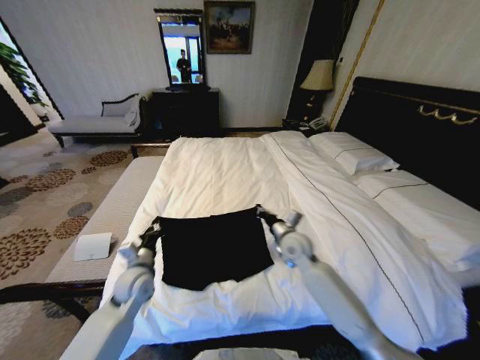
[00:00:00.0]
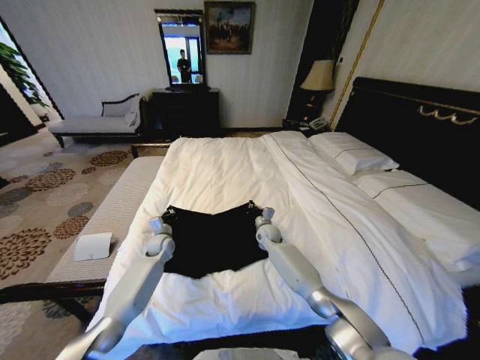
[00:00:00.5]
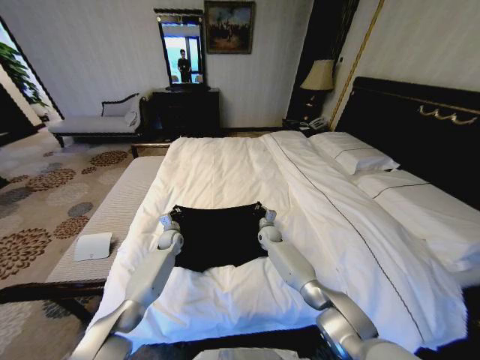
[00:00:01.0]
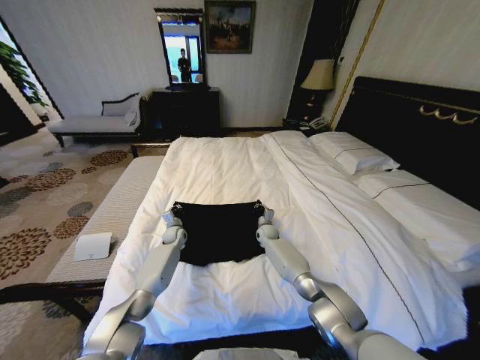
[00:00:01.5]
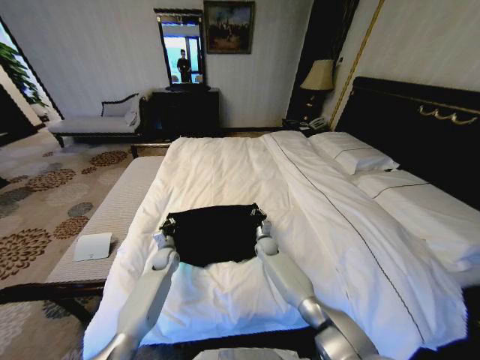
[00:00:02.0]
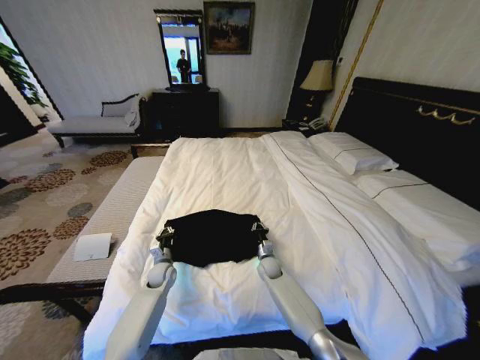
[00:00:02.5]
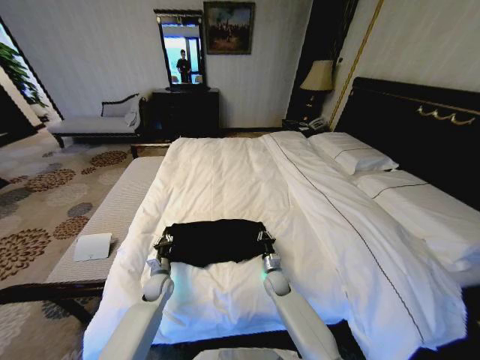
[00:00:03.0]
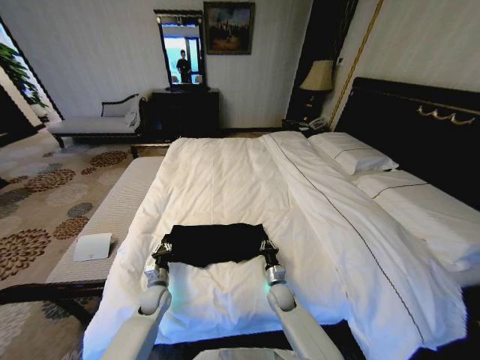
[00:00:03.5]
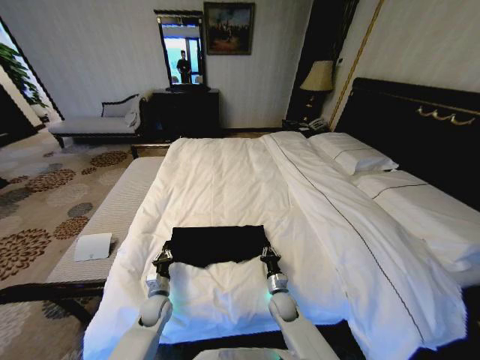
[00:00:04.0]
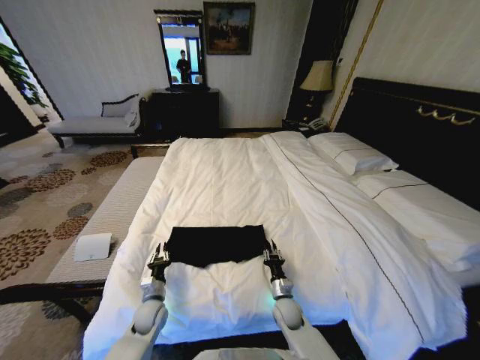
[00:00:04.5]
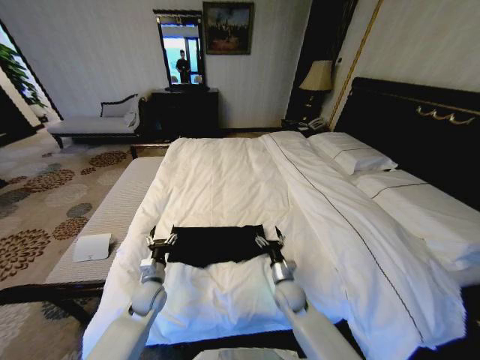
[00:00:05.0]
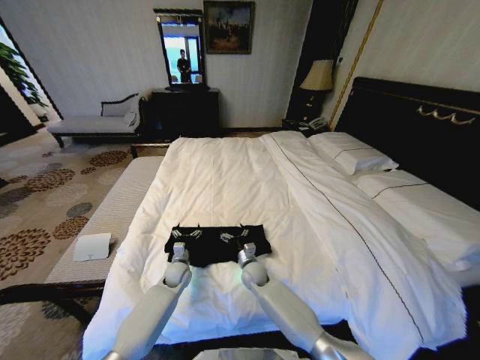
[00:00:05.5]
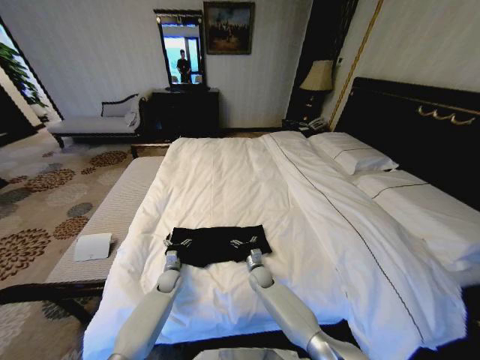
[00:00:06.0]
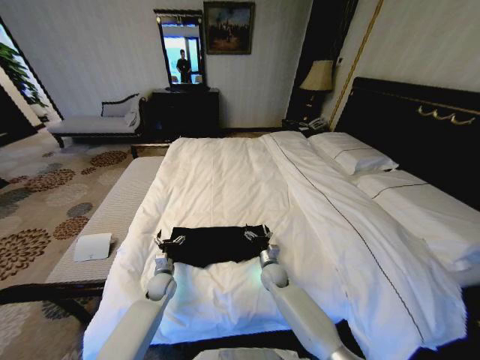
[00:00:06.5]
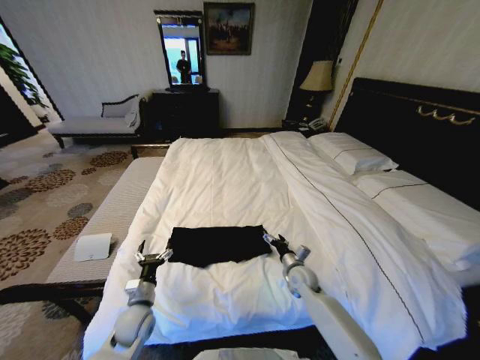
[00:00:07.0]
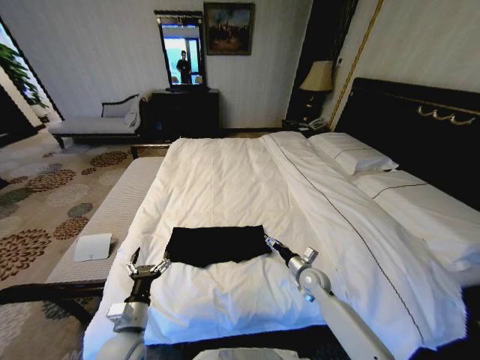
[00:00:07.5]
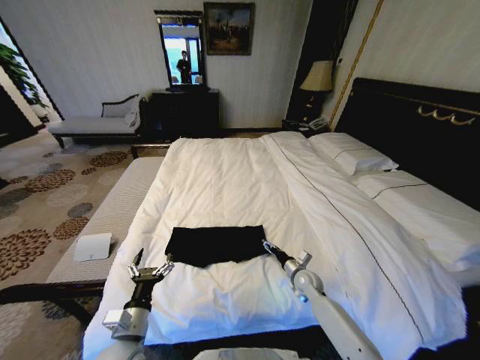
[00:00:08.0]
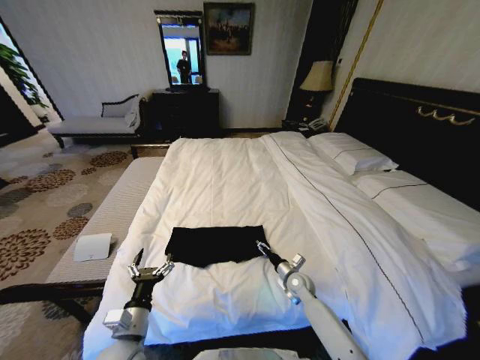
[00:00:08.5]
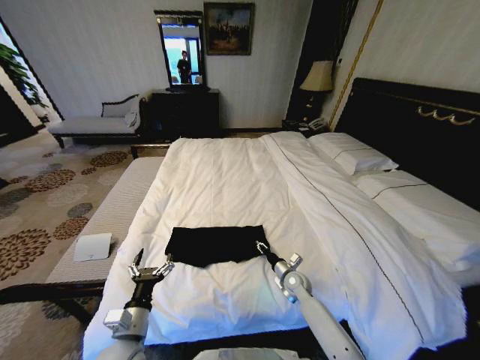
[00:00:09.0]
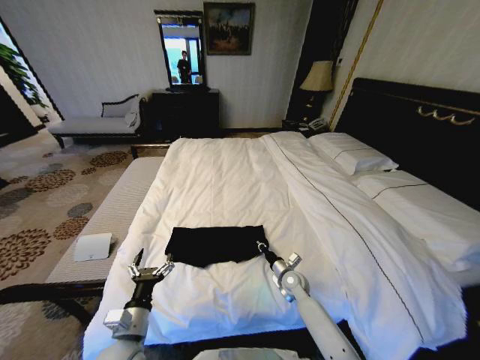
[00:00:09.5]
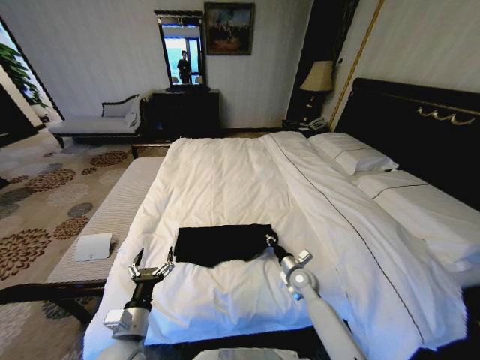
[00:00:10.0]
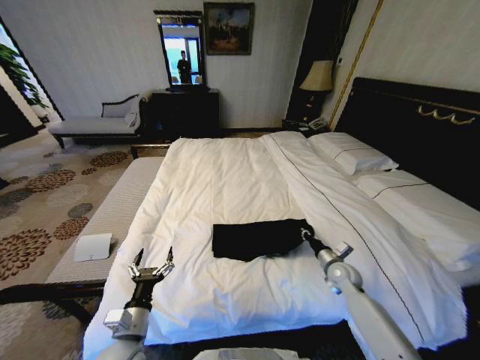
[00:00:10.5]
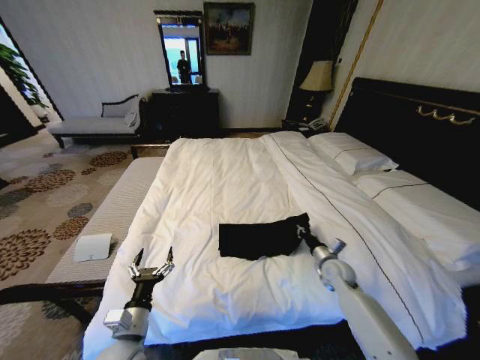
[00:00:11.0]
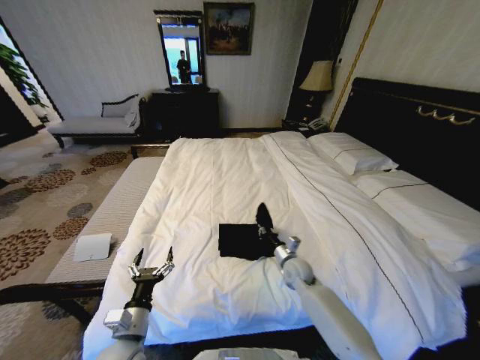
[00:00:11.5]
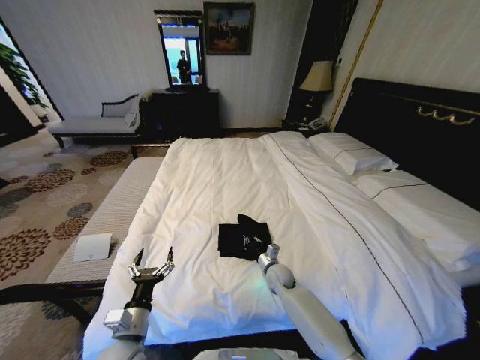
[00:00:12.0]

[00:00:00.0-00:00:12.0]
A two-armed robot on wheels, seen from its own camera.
Task of the whole recording: Fold the clothes on the bed.
00:00:00.0 to 00:00:02.0: The right gripper moves downward and forward, approximately 20 cm; the left gripper shifts approximately 20 cm forward and downward.
00:00:02.0 to 00:00:04.0: The grippers both shift backward by some 20 cm.
00:00:04.0 to 00:00:06.0: The right gripper is displaced forward and to the left by approximately 10 cm, and opens up. Meanwhile the left gripper heads forward, covering roughly 10 cm, and opens its fingers.
00:00:06.0 to 00:00:08.0: The left gripper moves backward and upward, about 30 cm. Meanwhile the right gripper heads to the right, covering some 15 cm.
00:00:08.0 to 00:00:10.0: The right gripper closes.
00:00:10.0 to 00:00:12.0: The right gripper is displaced to the left by about 10 cm.

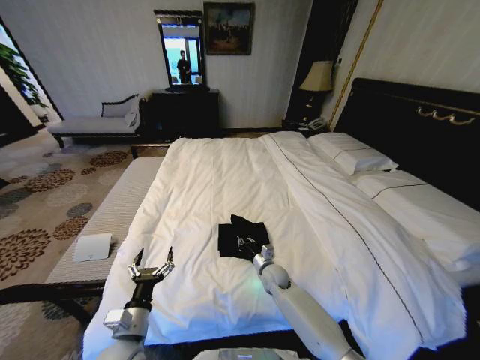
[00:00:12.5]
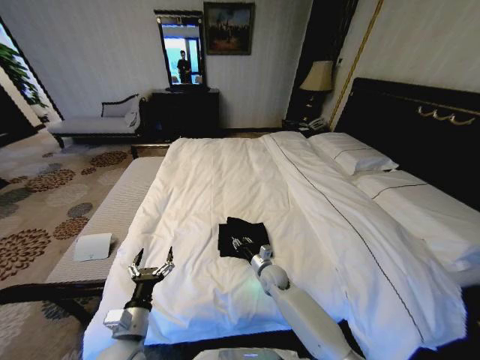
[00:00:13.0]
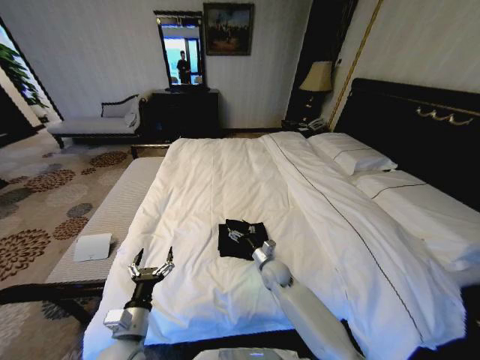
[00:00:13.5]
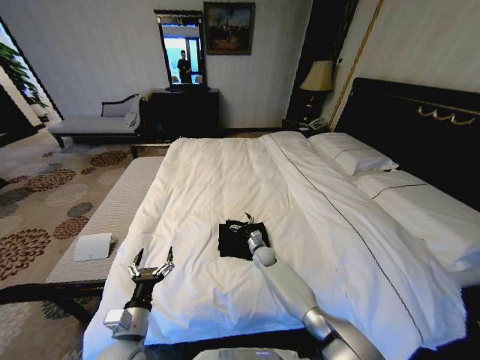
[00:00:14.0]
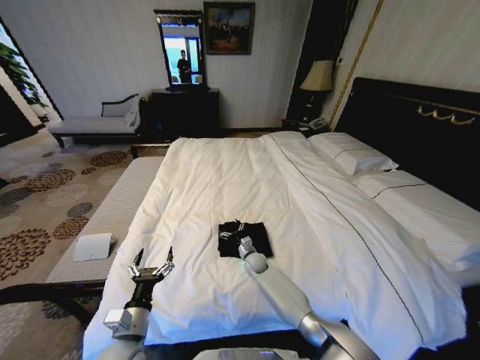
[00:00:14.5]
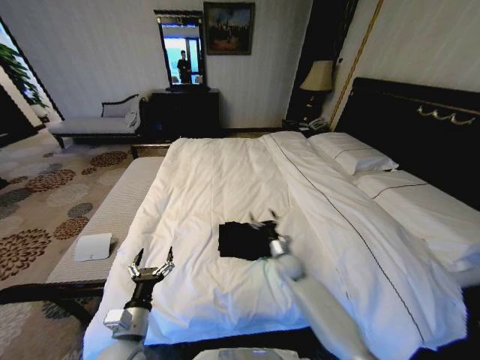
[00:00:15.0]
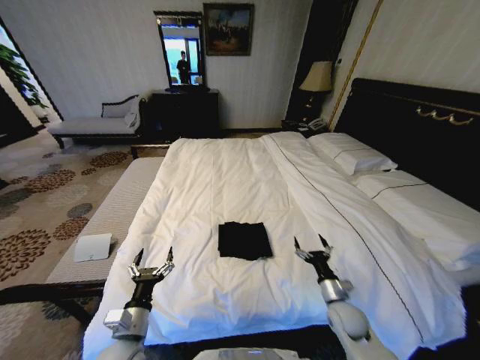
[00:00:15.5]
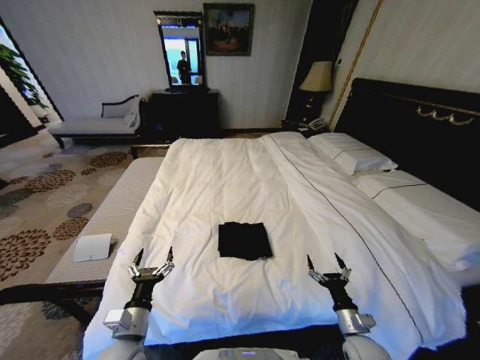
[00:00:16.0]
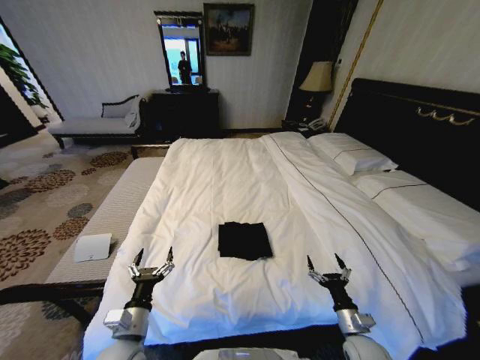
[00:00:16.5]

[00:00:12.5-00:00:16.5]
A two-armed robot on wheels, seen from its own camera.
Task of the whole recording: Fold the clothes on the bed.
00:00:12.5 to 00:00:14.5: The right gripper is displaced forward and to the left by approximately 10 cm, and opens.
00:00:14.5 to 00:00:16.5: The right gripper is displaced backward and to the right by roughly 40 cm.
